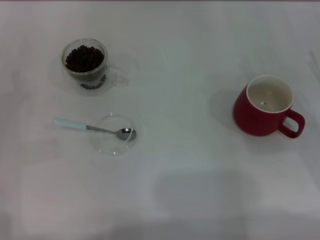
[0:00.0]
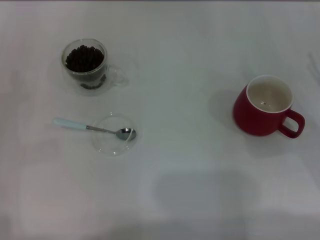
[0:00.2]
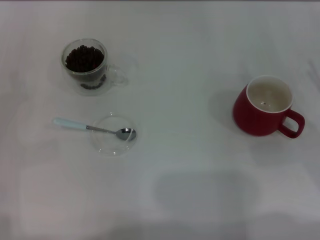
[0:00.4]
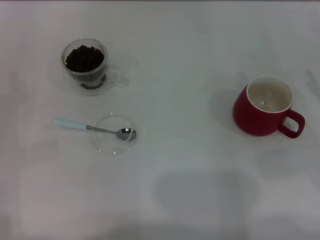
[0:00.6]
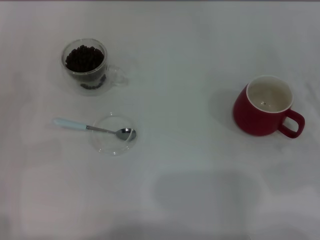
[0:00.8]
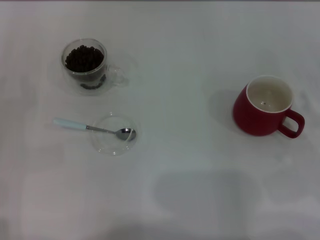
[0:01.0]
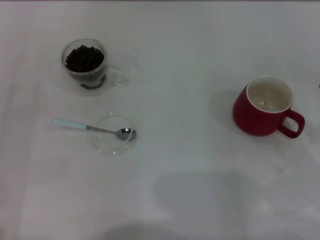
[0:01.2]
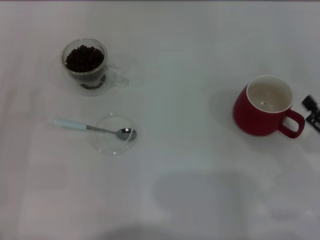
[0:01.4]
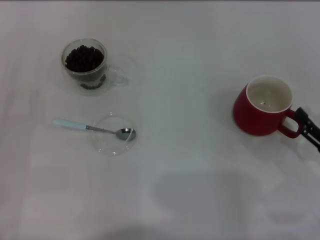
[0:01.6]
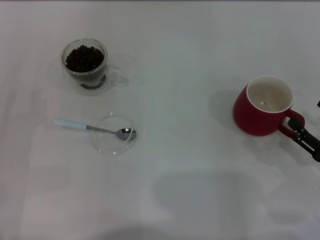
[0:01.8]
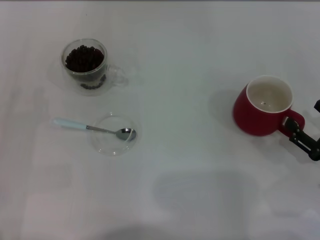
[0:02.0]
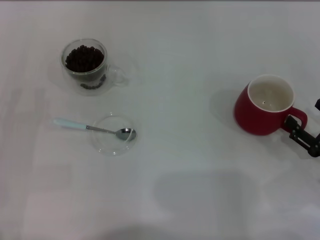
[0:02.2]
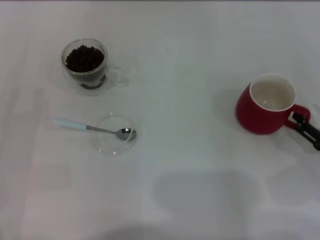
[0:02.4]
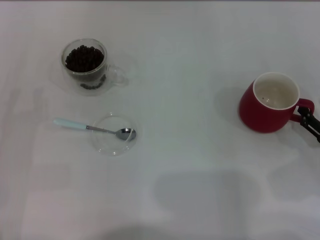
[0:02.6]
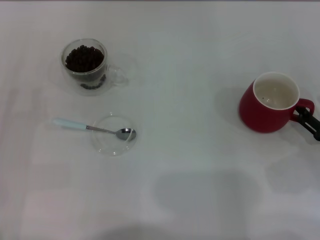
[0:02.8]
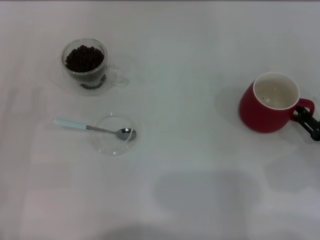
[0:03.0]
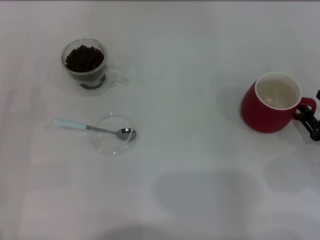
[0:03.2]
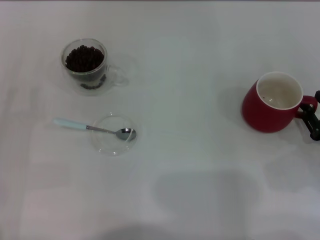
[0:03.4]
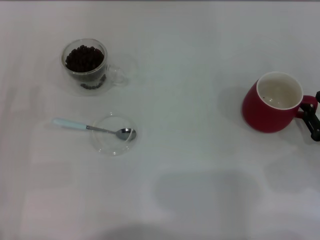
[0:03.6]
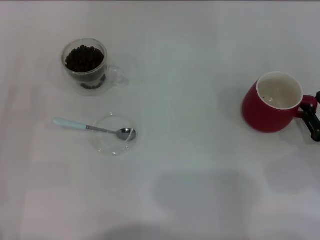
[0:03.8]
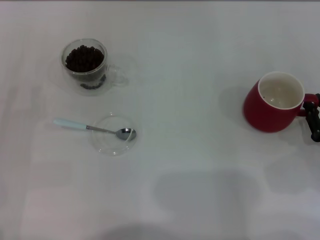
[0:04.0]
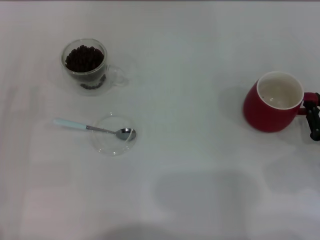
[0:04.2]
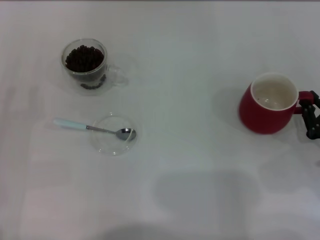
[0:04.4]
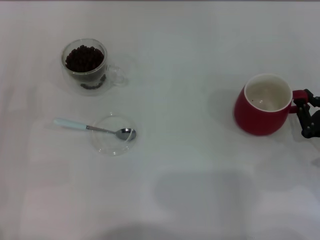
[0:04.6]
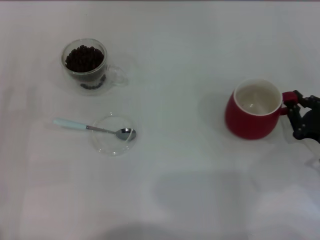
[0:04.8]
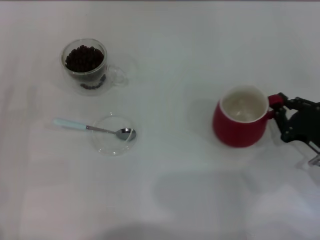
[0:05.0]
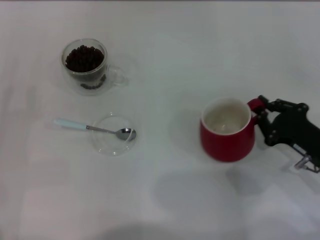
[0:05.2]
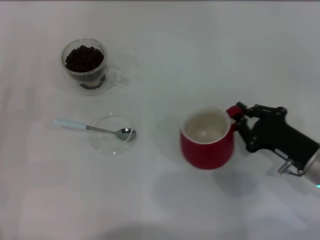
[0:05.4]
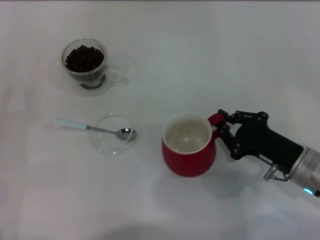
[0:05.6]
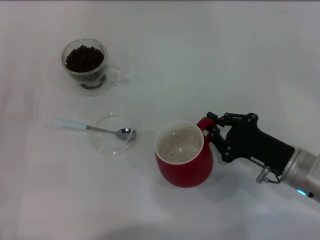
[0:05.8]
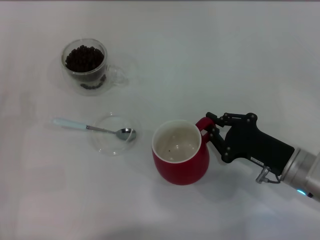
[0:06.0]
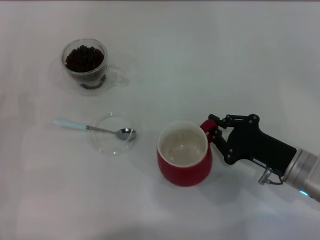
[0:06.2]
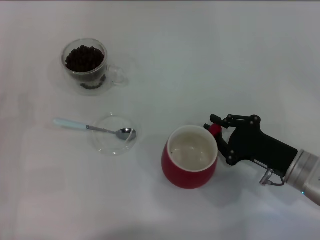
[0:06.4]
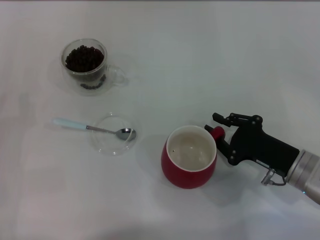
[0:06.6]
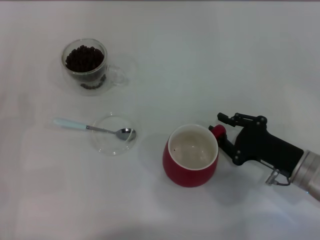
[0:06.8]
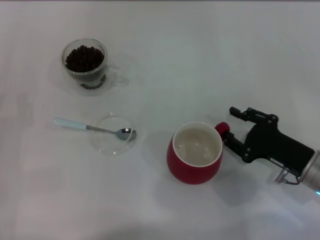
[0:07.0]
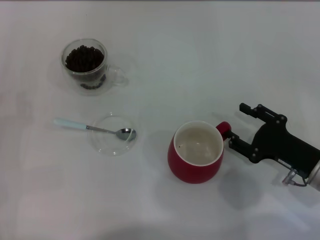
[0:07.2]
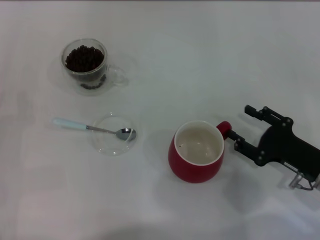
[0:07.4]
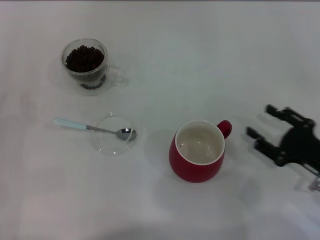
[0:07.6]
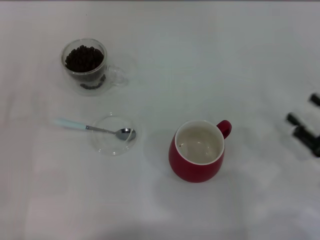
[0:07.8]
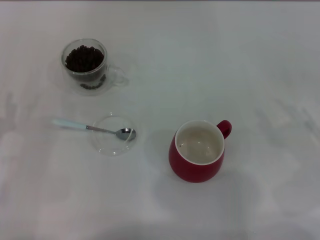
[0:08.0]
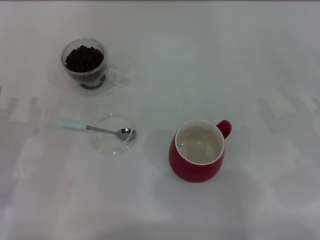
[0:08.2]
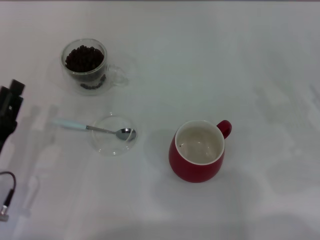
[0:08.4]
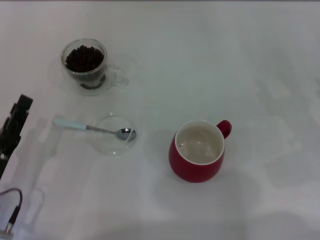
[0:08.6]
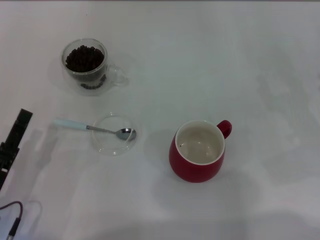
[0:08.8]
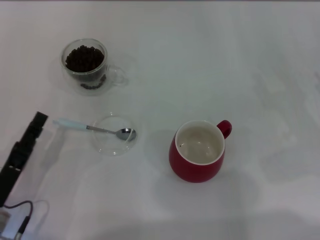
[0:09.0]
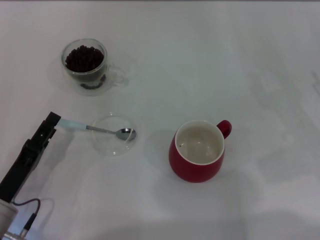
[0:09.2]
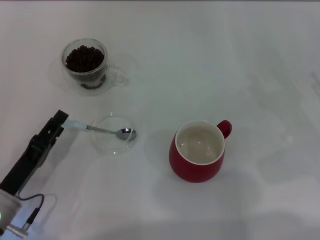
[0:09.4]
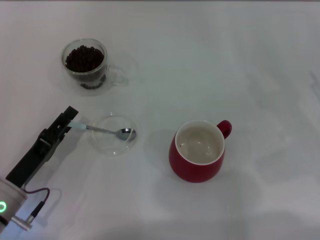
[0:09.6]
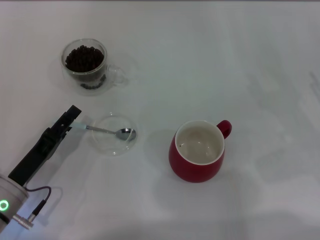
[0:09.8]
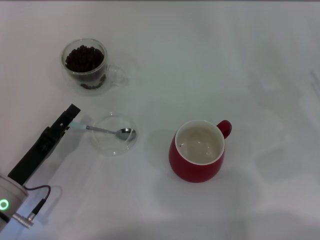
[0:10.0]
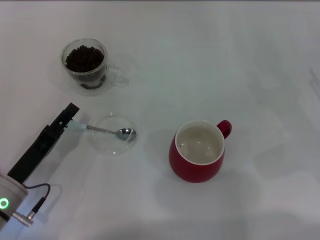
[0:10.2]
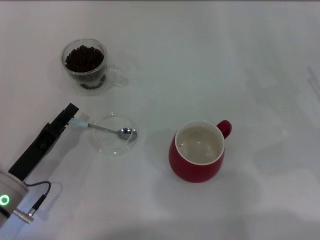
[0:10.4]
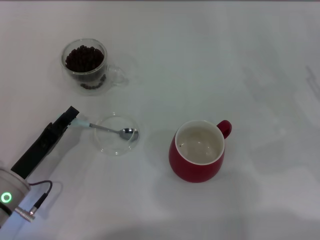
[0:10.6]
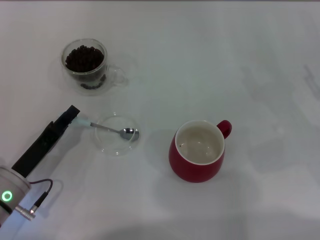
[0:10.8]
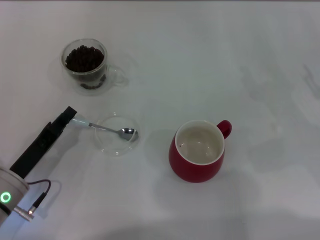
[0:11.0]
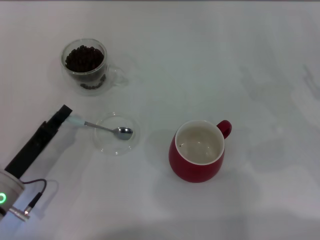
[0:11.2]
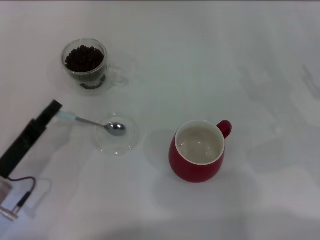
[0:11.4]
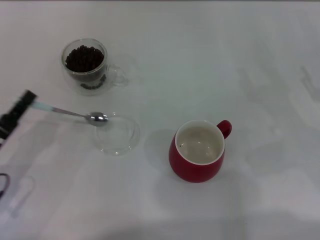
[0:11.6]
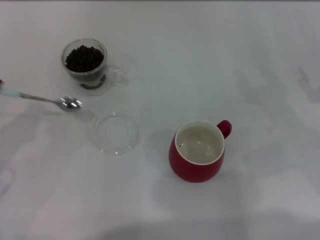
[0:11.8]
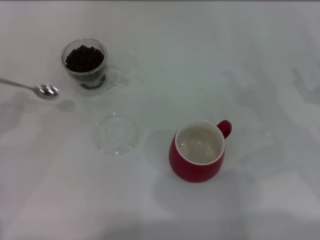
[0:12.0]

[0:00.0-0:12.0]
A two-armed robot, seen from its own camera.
Task of the whole recording: Use a blue spoon to take out the coffee beans from the glass and pour them into the red cup.
Step, 0:00.0 to 0:07.4: Move the cup to the center of view with the left gripper.
Step, 0:07.6 to 0:11.6: Pick up the spoon with the right gripper.
0:00.0 to 0:01.6: The right gripper goes roughly 10 cm backward.
0:01.6 to 0:03.0: The grippers make only small movements.
0:03.0 to 0:04.4: The right gripper closes its fingers.
0:04.4 to 0:06.0: The right gripper travels to the left by some 10 cm.
0:06.0 to 0:07.6: The right gripper goes roughly 5 cm to the right, and opens its fingers.
0:07.6 to 0:09.0: The right gripper is displaced to the right and upward by about 10 cm; the left gripper shifts some 10 cm to the right and backward.
0:09.0 to 0:10.4: The grippers move only a little.
0:10.4 to 0:12.0: The left gripper is displaced to the left and upward by about 15 cm, and closes up.

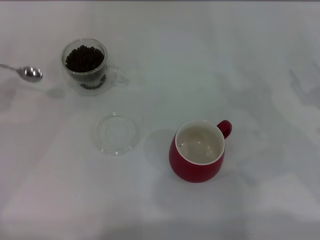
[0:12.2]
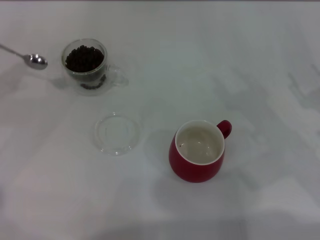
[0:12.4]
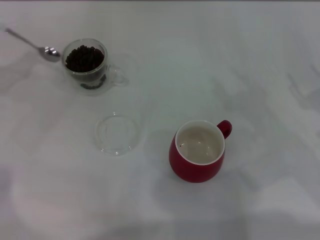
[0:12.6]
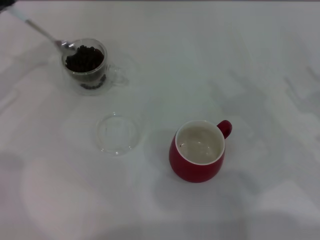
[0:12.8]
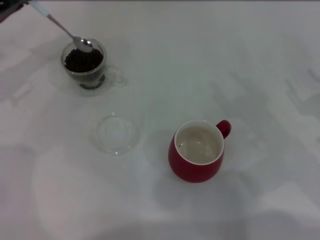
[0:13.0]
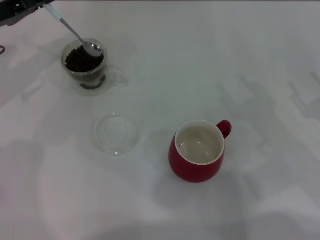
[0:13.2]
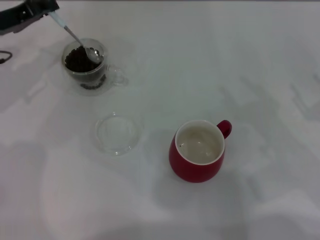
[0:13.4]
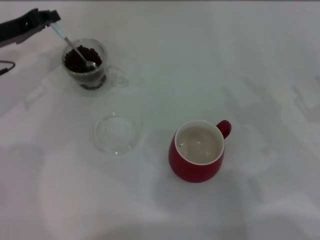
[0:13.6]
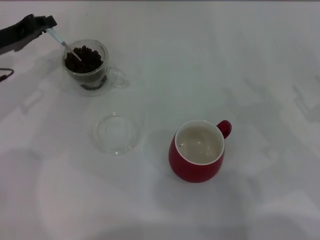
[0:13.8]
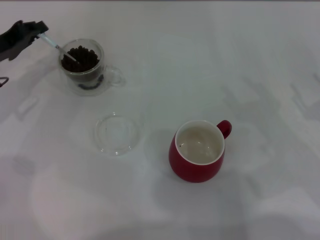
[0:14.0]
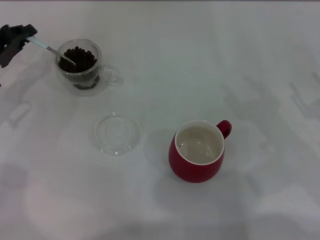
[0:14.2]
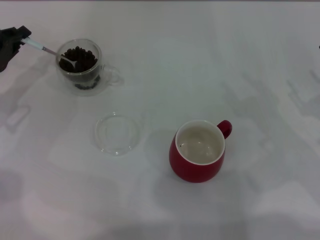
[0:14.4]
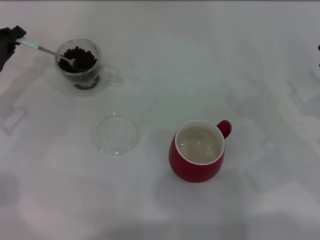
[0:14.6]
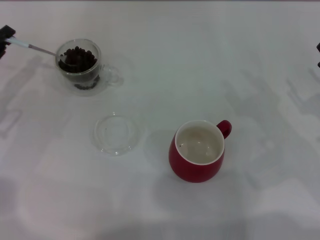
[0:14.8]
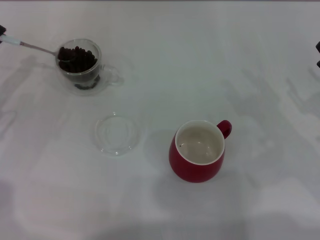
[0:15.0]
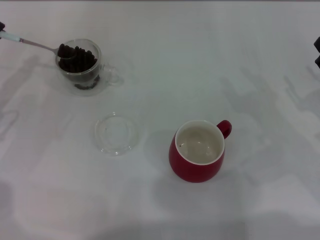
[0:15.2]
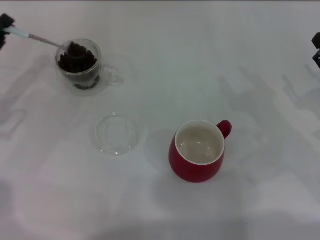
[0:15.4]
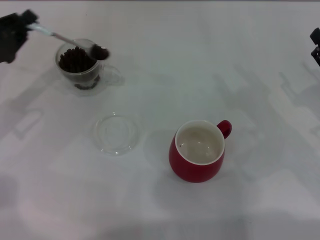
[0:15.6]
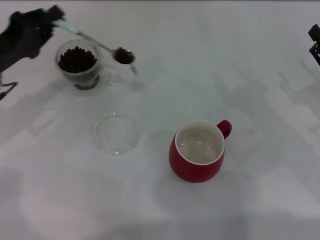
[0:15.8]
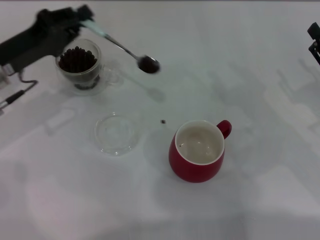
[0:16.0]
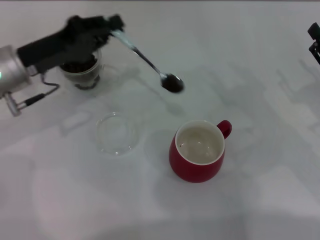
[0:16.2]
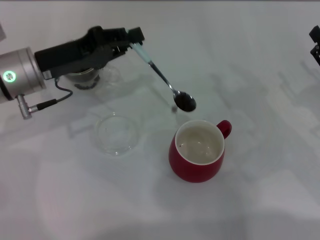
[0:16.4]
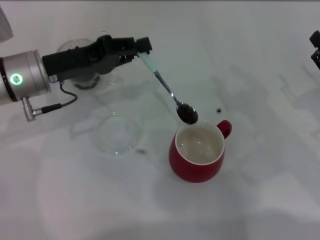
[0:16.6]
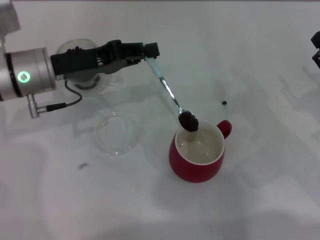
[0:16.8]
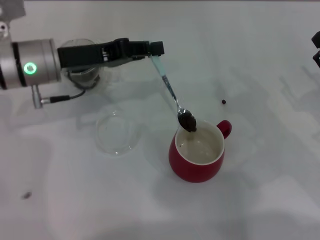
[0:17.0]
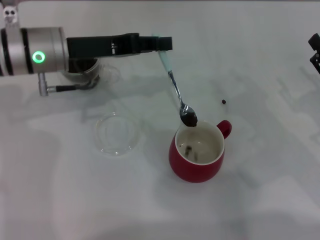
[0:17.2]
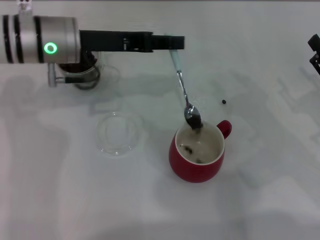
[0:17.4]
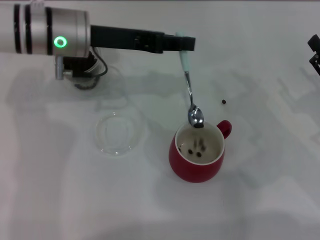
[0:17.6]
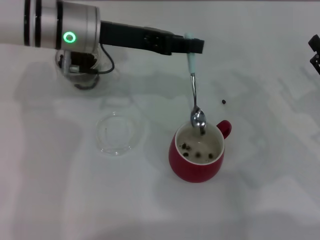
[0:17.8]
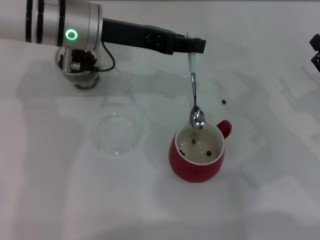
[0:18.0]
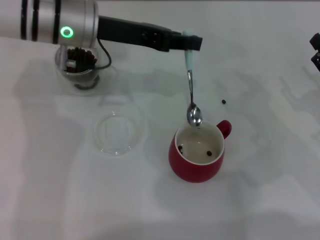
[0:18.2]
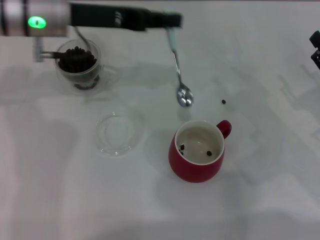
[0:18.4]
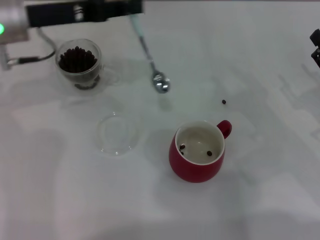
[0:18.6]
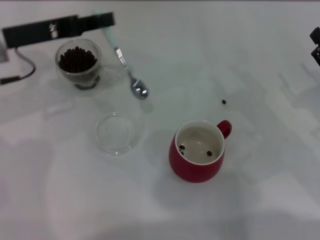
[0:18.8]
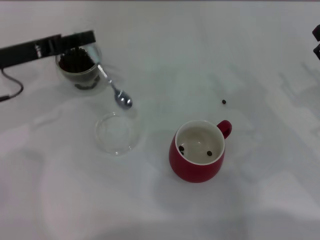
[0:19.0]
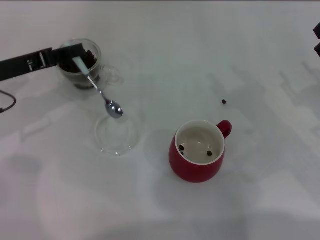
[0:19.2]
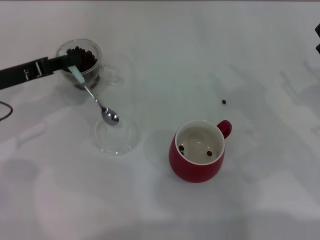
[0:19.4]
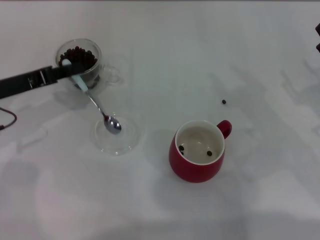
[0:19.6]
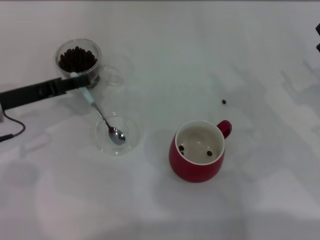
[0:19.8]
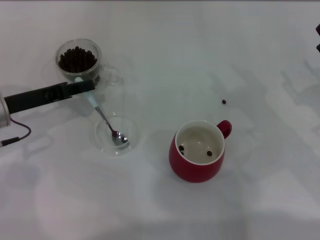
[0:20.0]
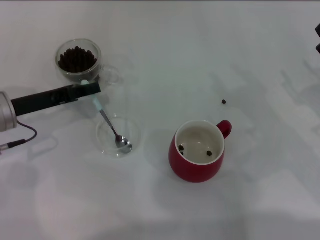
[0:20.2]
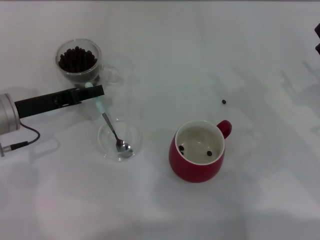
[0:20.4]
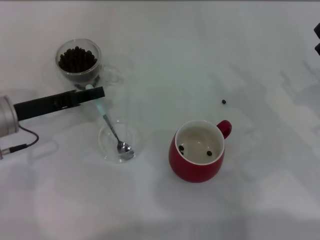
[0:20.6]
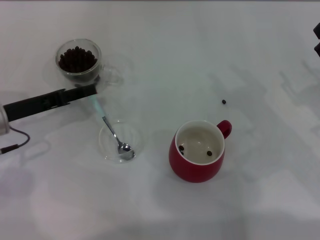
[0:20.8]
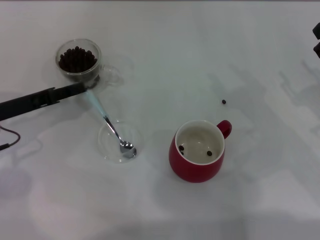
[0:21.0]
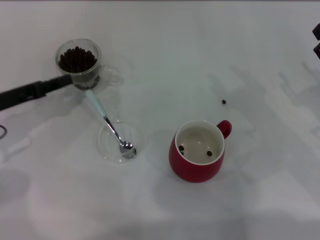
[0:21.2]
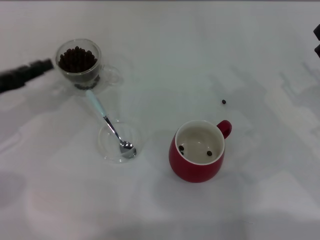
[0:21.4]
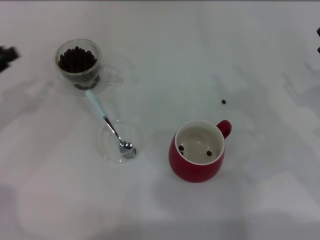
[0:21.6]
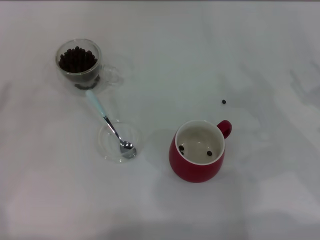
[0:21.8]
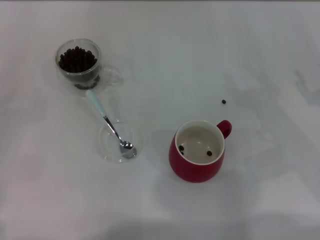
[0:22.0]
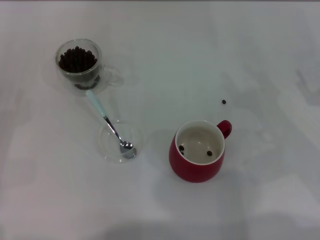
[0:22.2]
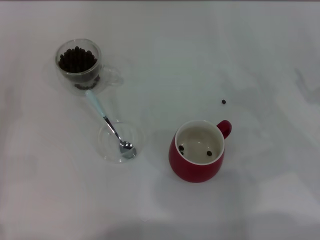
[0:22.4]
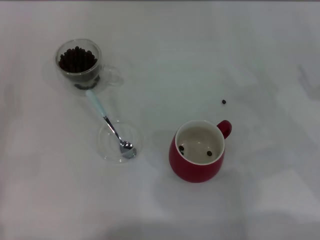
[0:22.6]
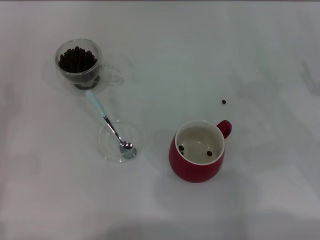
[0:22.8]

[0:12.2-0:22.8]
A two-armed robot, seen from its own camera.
Task of the whole recording: Use a blue spoon to take out the coffee beans from the glass and pour them into the red cup.
Step, 0:12.2 to 0:18.2: Scoop a spoonful of beans into the cup with the right gripper.
0:12.2 to 0:13.8: The left gripper shifts approximately 15 cm forward and to the right.
0:13.8 to 0:15.2: The left gripper goes about 10 cm backward and to the left.
0:15.2 to 0:16.8: The left gripper is displaced to the right by about 15 cm.
0:16.8 to 0:18.2: The left gripper is displaced to the right and upward by approximately 10 cm.
0:18.2 to 0:19.8: The left gripper shifts roughly 20 cm to the left, downward and backward.
0:19.8 to 0:21.2: The left gripper opens.
0:21.2 to 0:22.8: The left gripper is displaced to the left and backward by approximately 10 cm.
